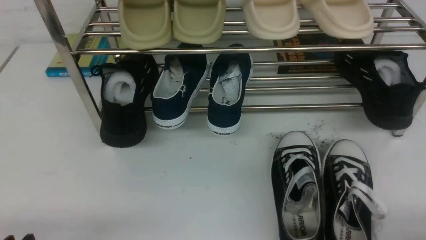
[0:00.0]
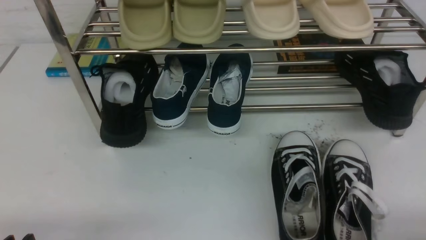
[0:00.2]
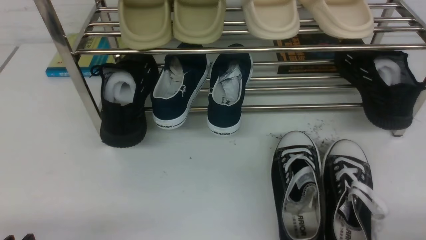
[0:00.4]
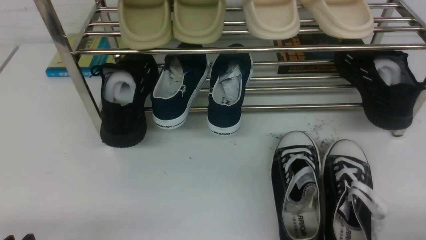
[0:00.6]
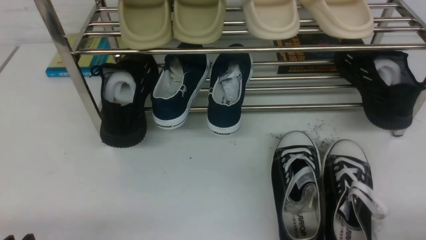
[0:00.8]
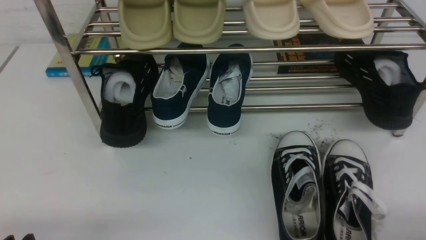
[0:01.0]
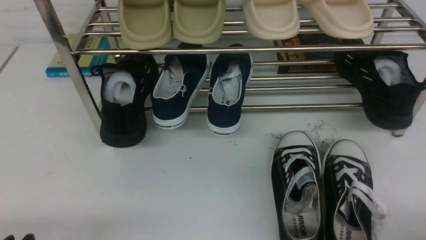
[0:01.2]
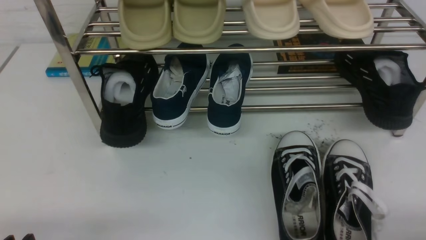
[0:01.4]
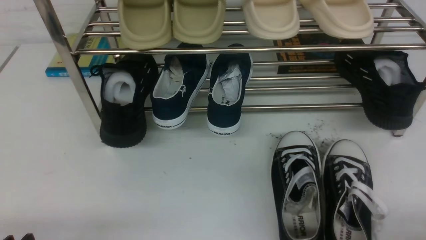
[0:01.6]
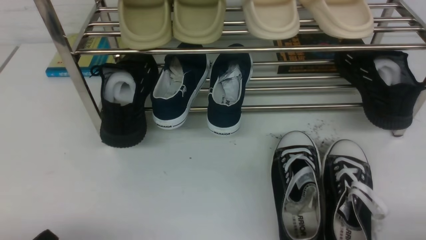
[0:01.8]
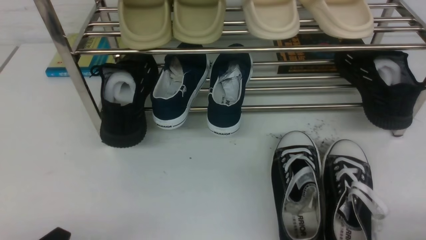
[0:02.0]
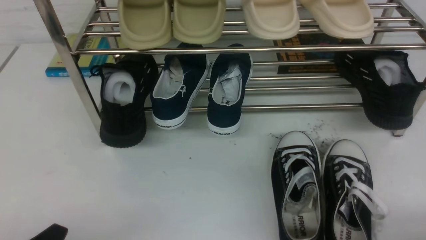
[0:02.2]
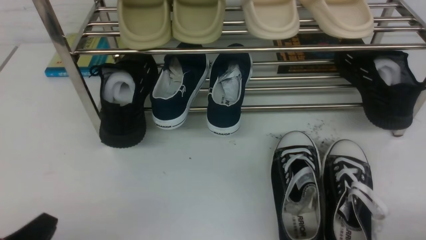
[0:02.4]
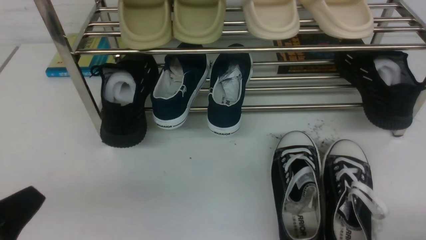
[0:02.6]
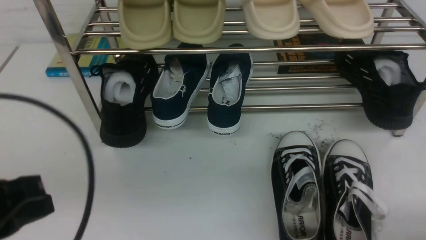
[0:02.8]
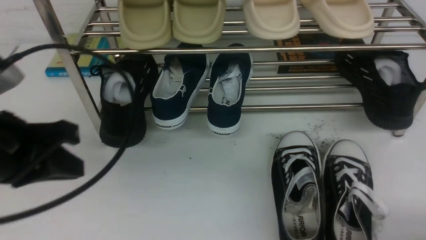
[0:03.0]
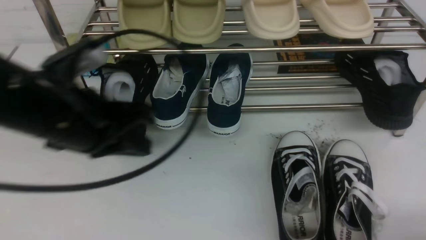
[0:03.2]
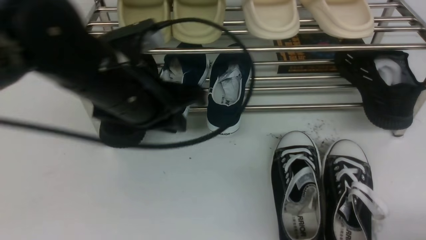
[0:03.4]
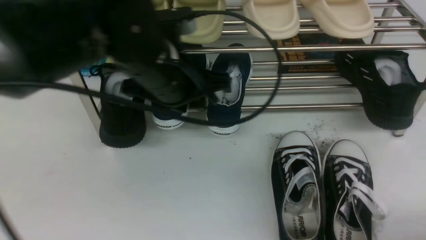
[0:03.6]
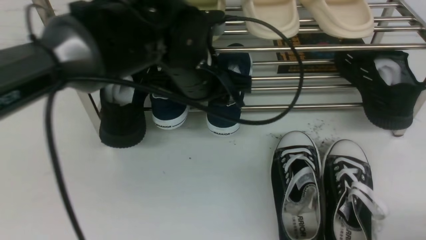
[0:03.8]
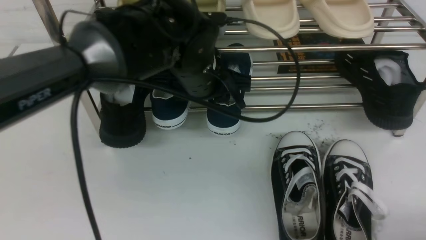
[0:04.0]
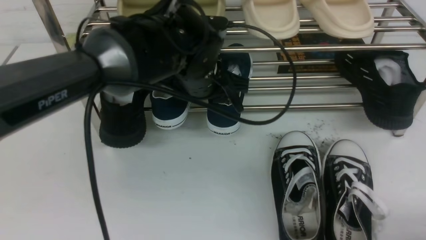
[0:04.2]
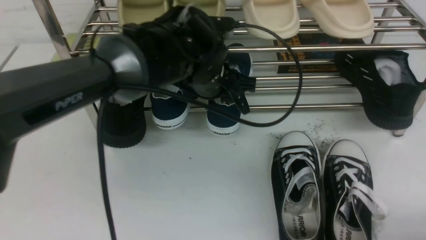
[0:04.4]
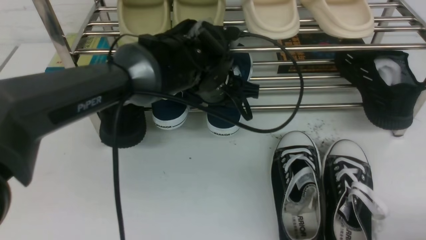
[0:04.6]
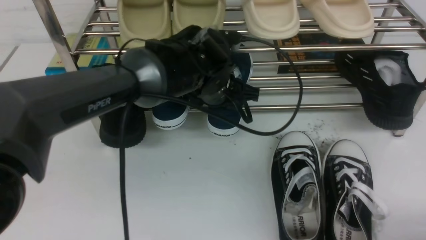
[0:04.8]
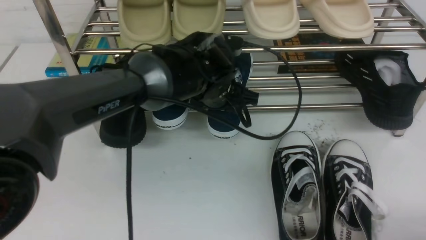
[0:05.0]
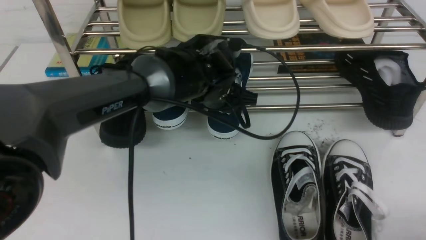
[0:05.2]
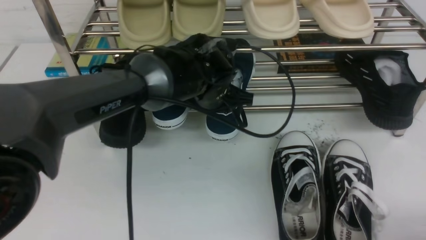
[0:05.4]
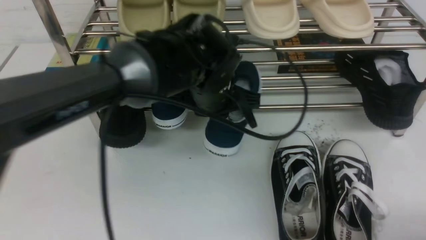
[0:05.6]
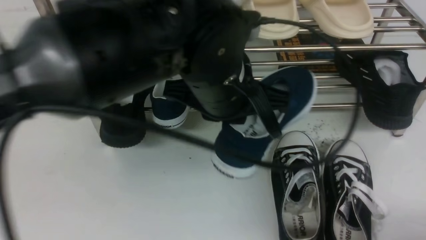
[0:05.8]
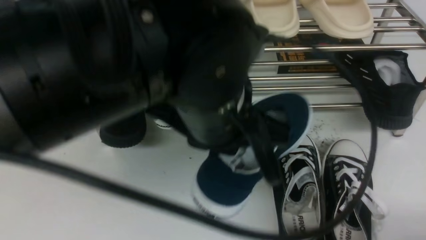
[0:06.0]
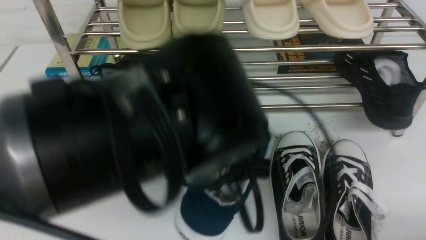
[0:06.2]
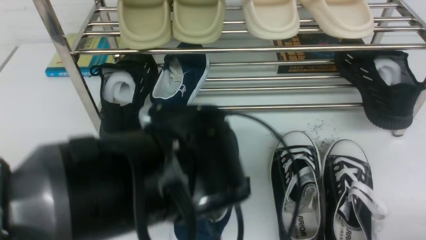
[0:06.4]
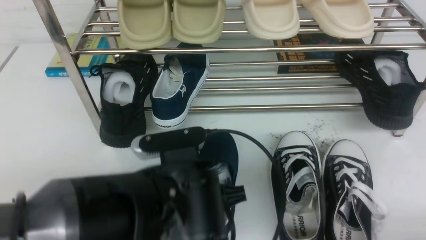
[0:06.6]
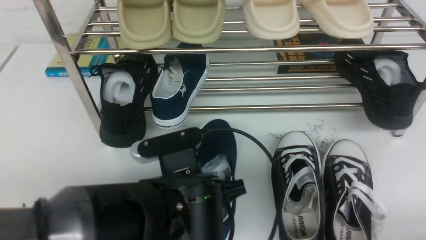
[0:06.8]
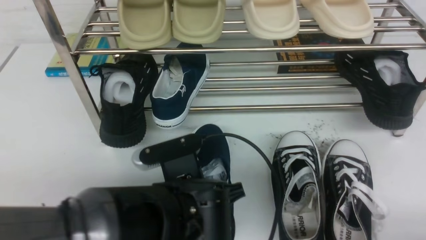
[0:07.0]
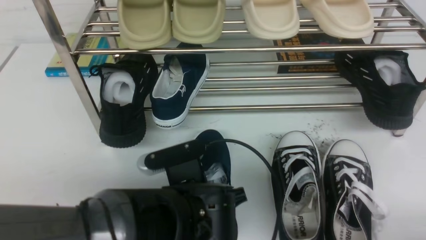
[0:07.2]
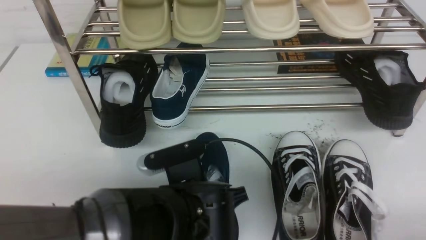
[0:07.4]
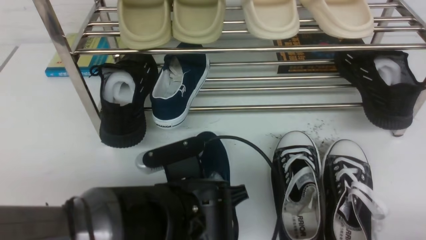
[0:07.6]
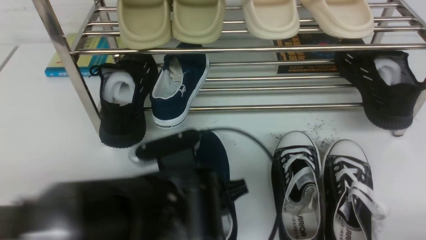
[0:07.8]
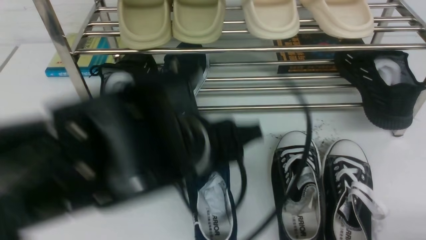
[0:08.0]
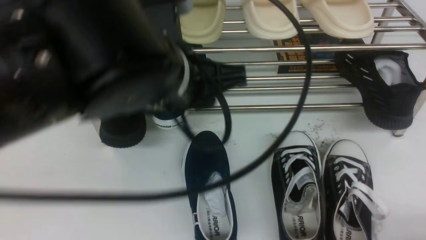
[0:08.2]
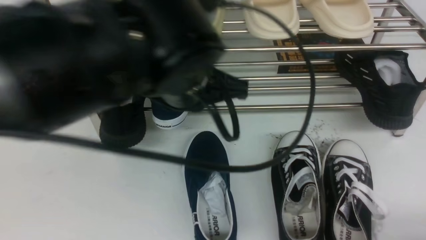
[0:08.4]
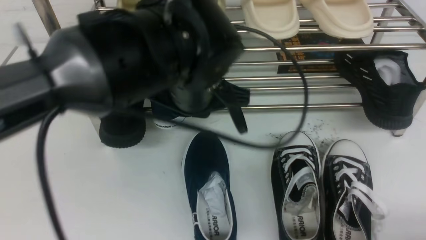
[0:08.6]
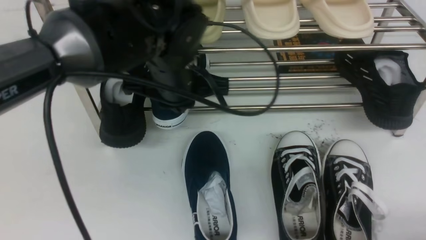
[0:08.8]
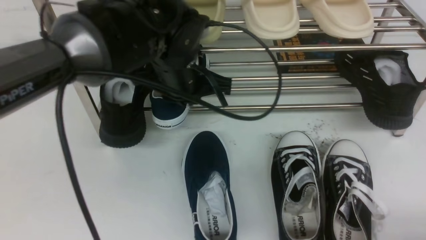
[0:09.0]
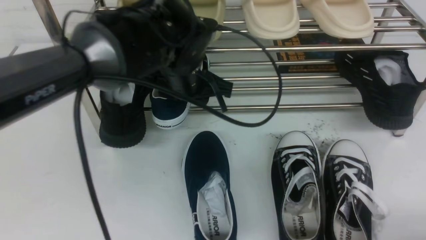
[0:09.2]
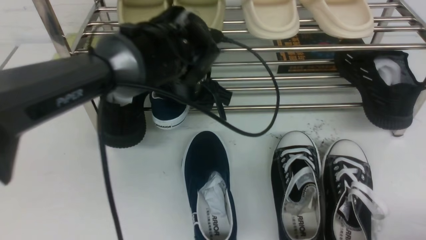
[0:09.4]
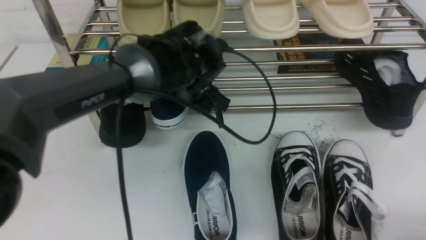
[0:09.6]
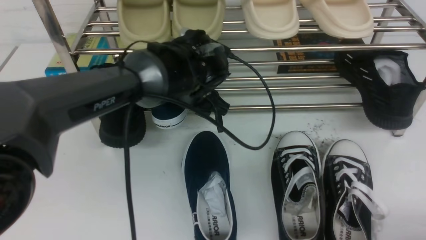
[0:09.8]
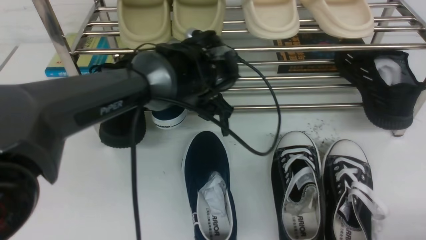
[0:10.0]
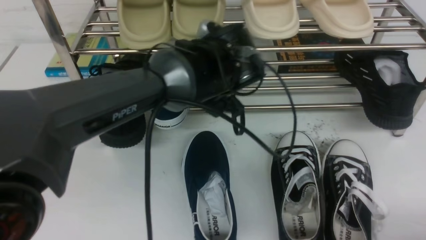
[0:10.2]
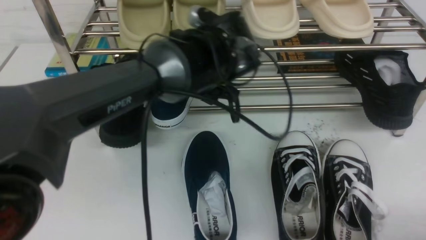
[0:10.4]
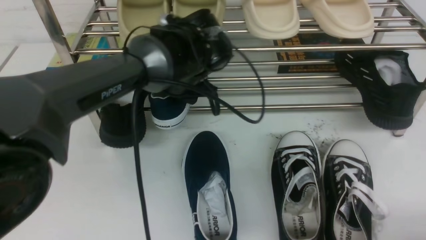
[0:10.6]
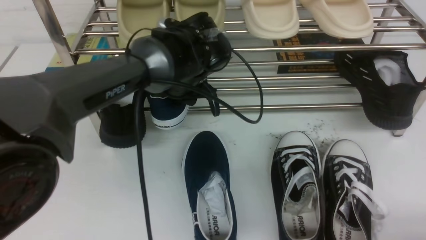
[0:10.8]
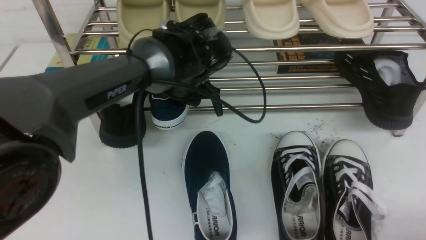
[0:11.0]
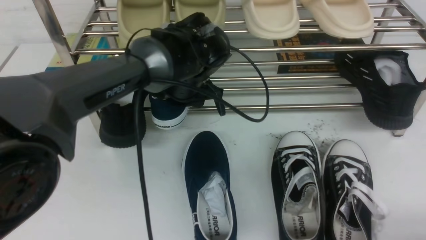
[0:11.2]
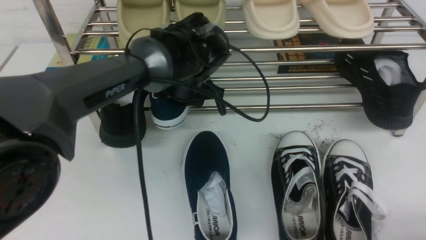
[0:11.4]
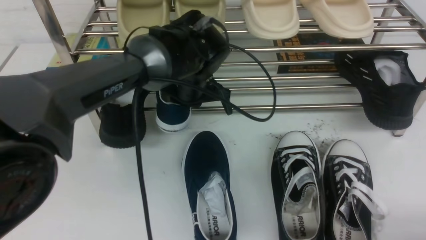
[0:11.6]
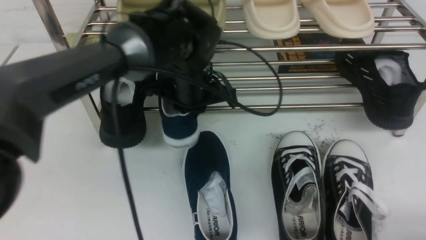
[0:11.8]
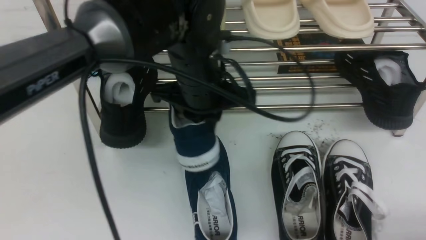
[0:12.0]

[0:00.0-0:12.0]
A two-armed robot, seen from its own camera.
Step, 0:00.0 to 0:05.6: use the left arm to clamp a shoe in the middle of the shoe rack.
Step, 0:05.8 to 0:08.0: Use your left arm to remove the clamped shoe from the shoe rack and put it down.
Step, 0:08.2 to 0:11.8: use the left arm to clamp a shoe on the left side of the shoe rack.
0:01.6 to 0:03.0: The left gripper travels upward and forward by roughly 20 cm, and closes up.
0:03.0 to 0:04.4: The left gripper moves to the right and forward, some 25 cm, and opens up.
0:04.4 to 0:06.0: The left gripper heads backward and upward, covering roughly 15 cm, and closes its fingers.
0:06.0 to 0:07.6: The left gripper moves downward, about 15 cm, and opens.
0:07.6 to 0:09.0: The left gripper heads forward and upward, covering about 20 cm, and closes its fingers.
0:09.0 to 0:10.4: The left gripper ends up approximately 5 cm from where it was, and opens.
0:10.4 to 0:12.0: The left gripper shifts approximately 5 cm backward, and closes its fingers.

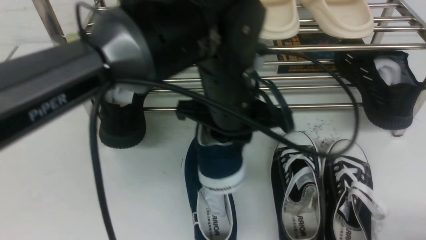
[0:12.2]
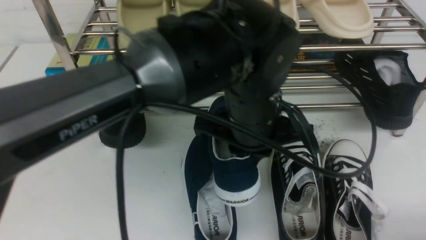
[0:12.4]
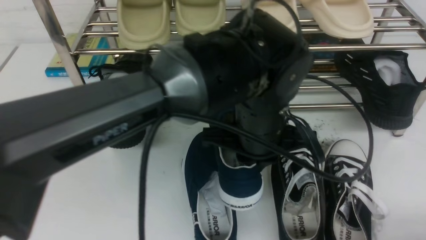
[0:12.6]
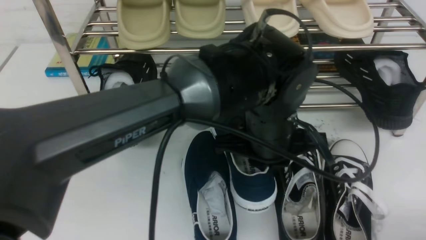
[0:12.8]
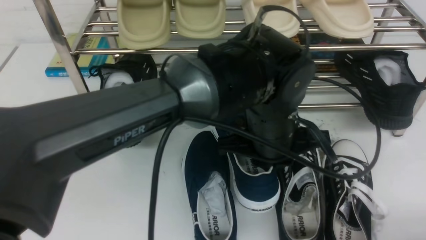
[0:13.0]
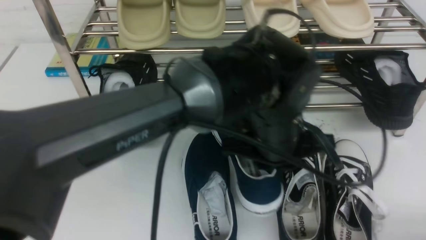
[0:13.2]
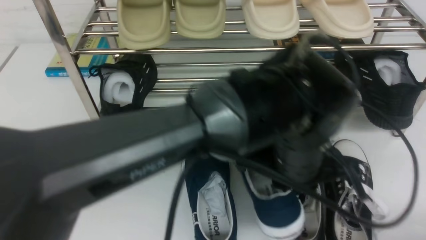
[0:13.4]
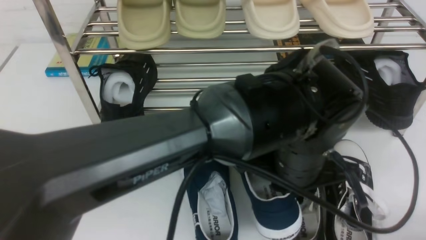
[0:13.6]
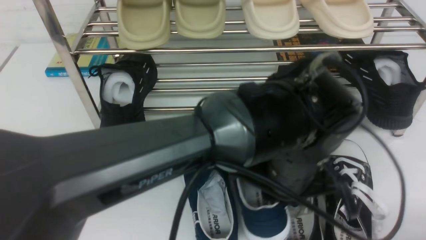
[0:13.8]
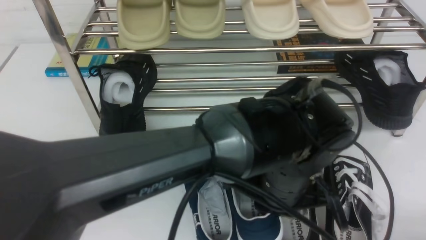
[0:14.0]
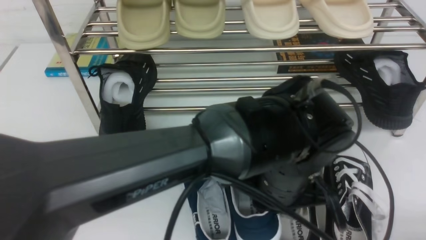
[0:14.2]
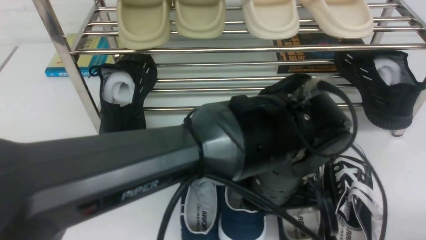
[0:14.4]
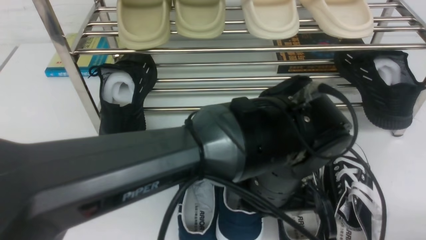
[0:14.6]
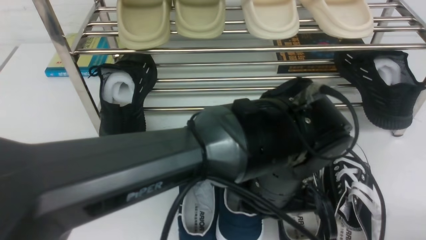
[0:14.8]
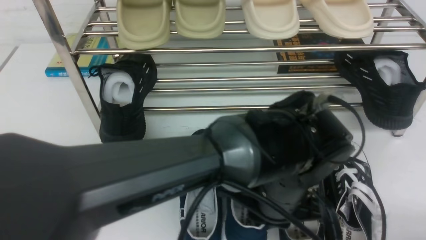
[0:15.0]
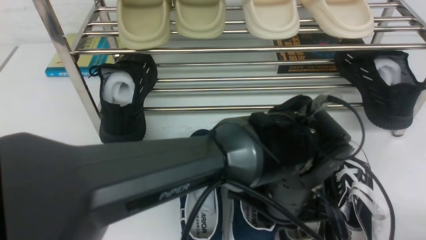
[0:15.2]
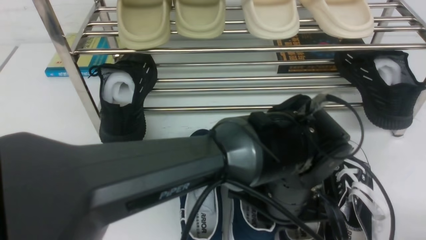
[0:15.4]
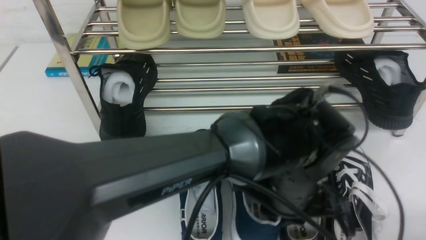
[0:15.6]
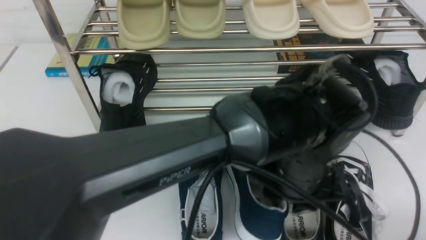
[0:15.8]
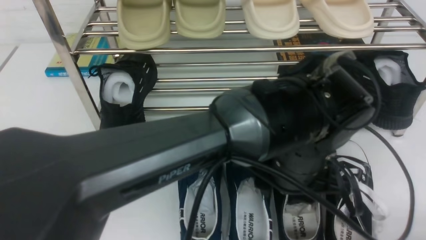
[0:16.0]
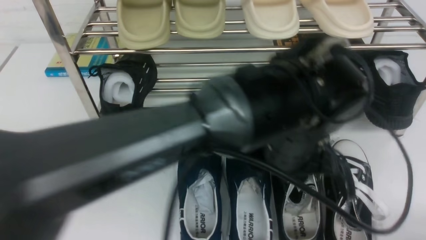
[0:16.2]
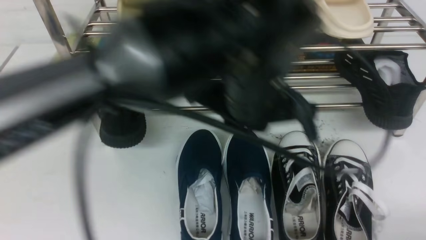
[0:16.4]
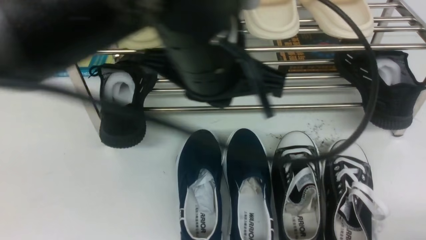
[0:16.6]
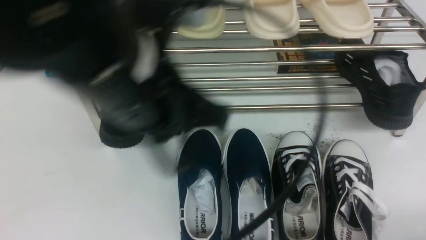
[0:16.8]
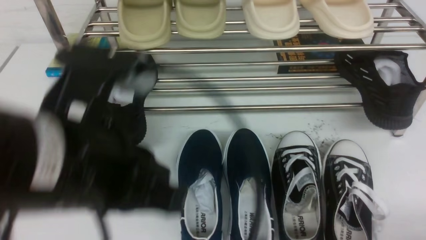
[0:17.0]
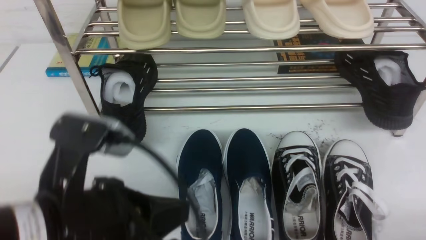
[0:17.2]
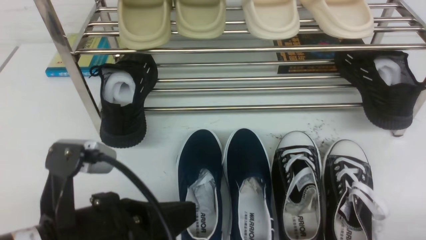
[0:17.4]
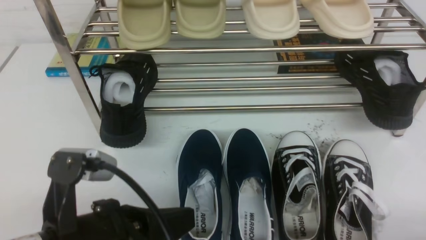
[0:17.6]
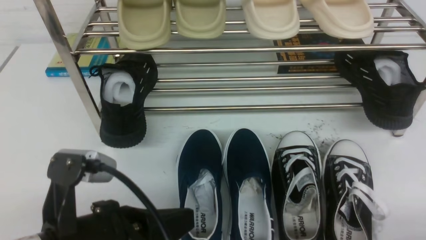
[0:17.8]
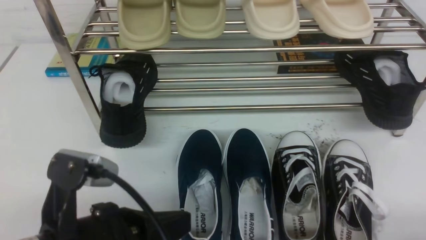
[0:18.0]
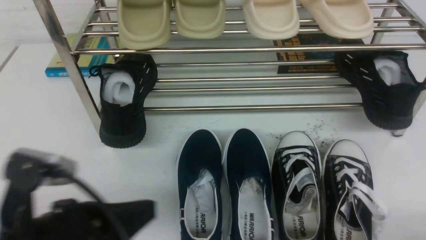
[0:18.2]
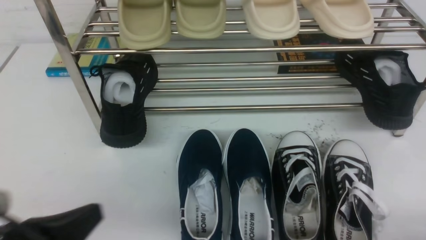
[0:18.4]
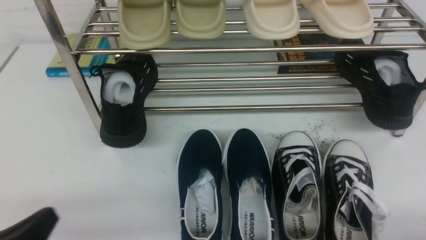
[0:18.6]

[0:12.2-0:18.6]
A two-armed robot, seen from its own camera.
Step, 0:12.2 to 0:16.2: Use your left arm to remove the clamped shoe from the shoe rack and put it down.
0:12.2 to 0:13.8: The left gripper travels to the right, backward and downward by some 10 cm.
0:15.4 to 0:17.0: The left gripper moves to the left and upward, about 25 cm, and opens, then closes again.
0:17.0 to 0:18.6: The left gripper heads downward, to the left and backward, covering approximately 20 cm.
